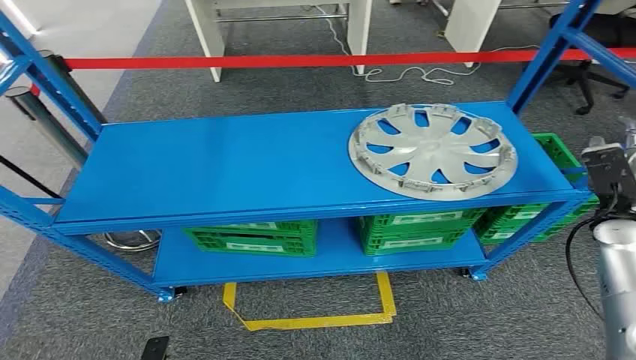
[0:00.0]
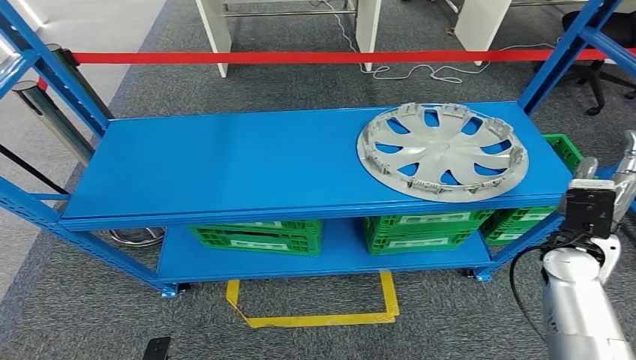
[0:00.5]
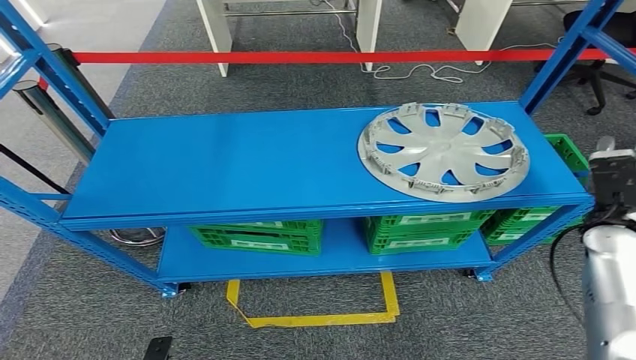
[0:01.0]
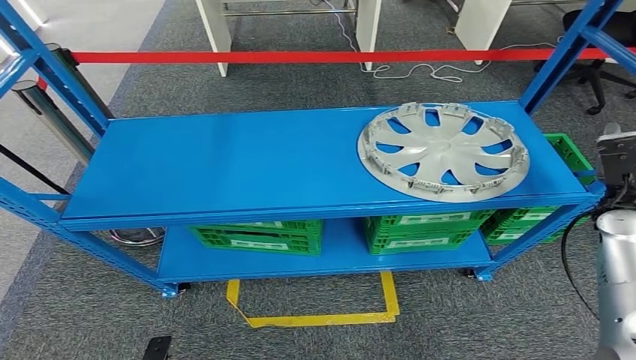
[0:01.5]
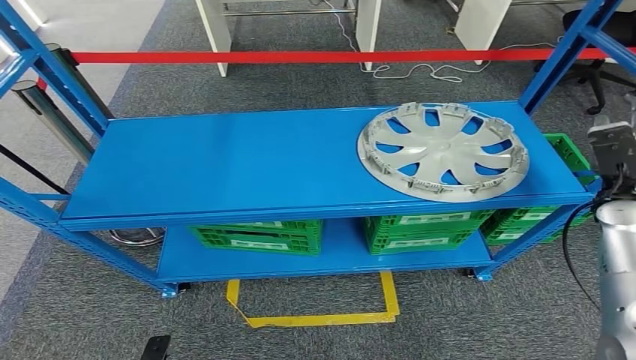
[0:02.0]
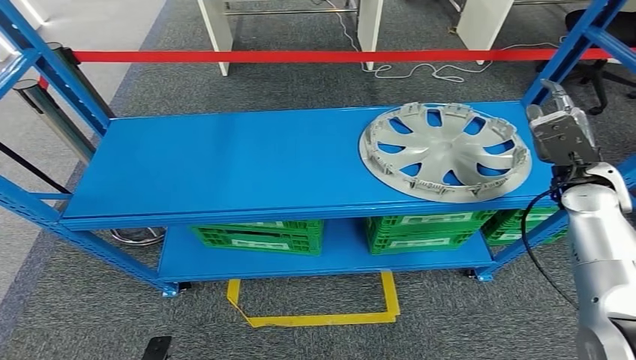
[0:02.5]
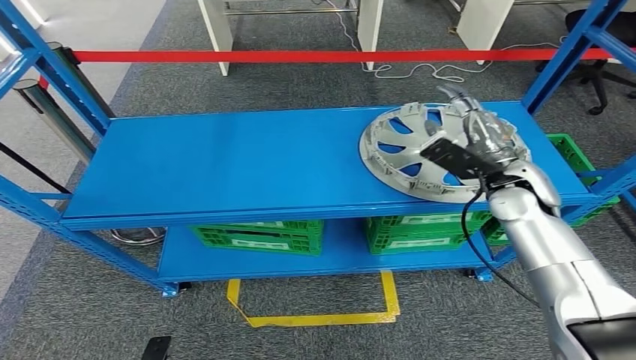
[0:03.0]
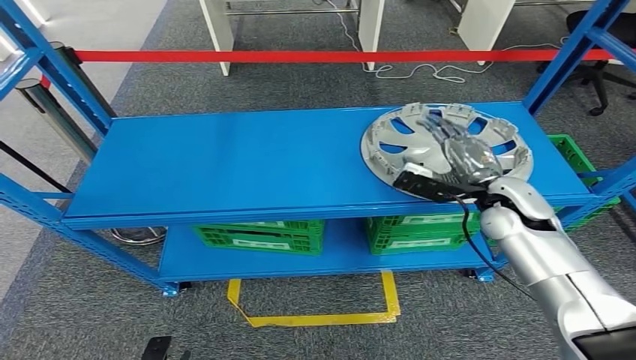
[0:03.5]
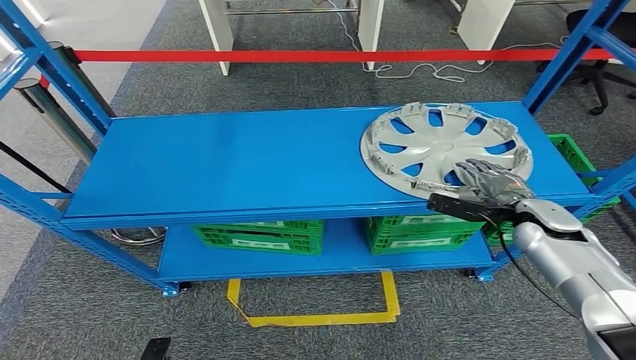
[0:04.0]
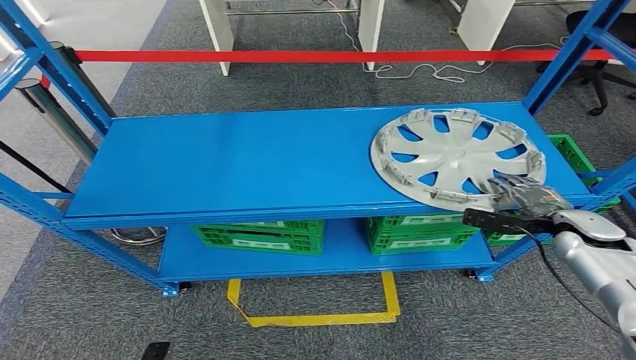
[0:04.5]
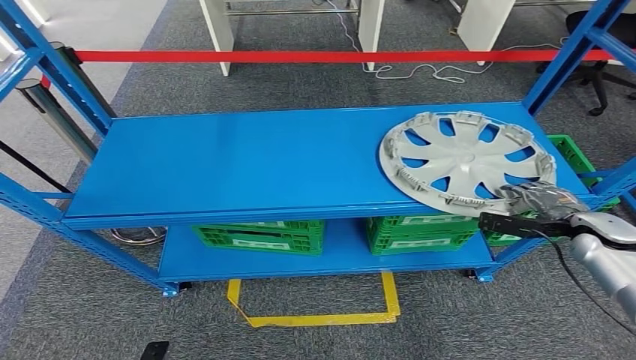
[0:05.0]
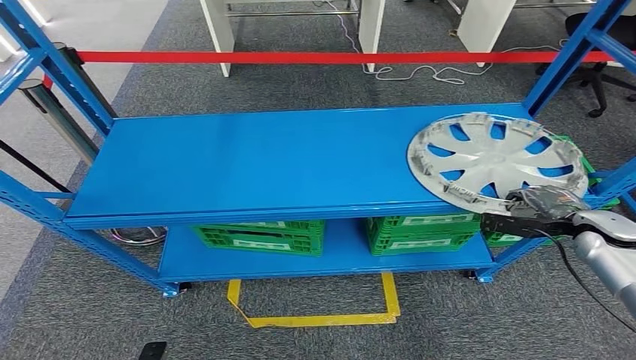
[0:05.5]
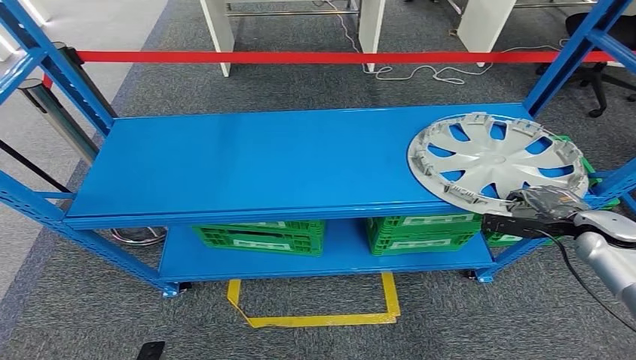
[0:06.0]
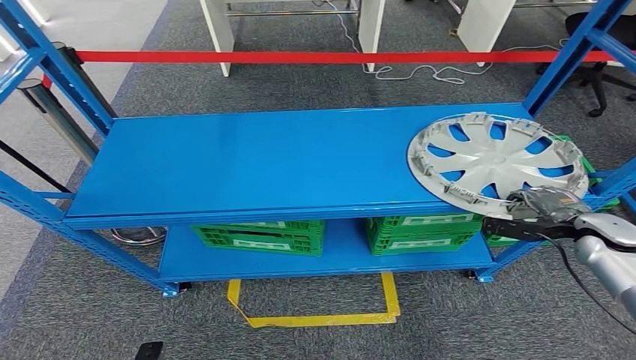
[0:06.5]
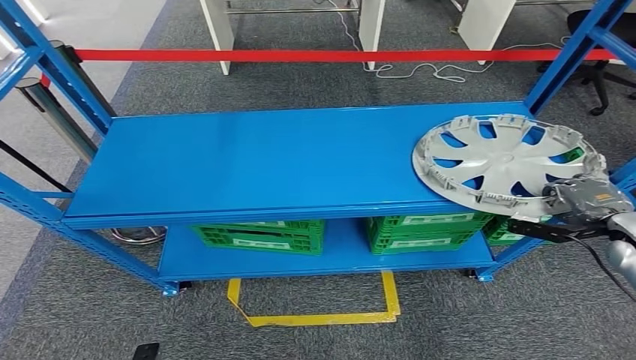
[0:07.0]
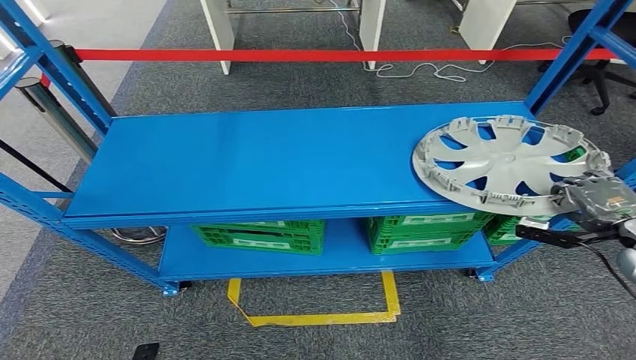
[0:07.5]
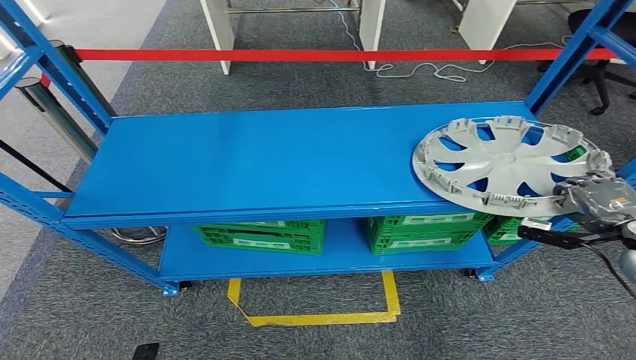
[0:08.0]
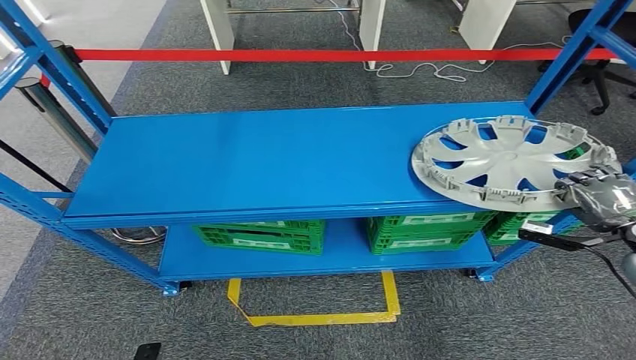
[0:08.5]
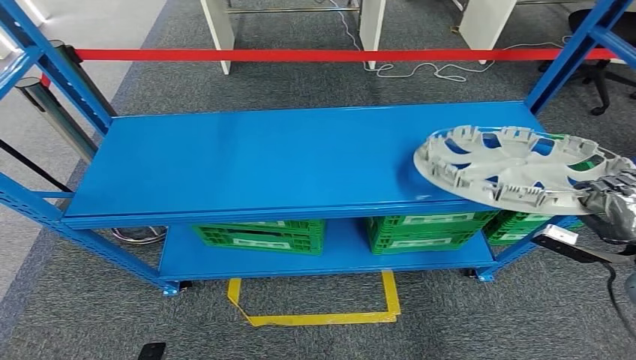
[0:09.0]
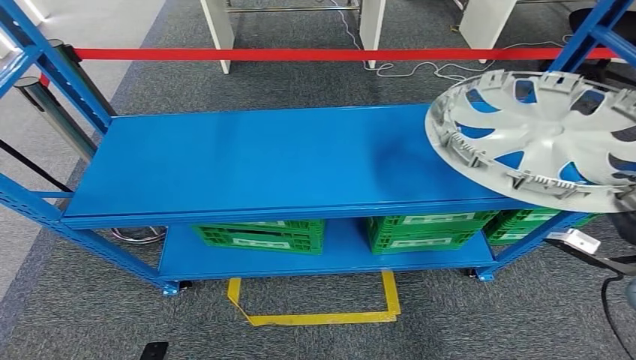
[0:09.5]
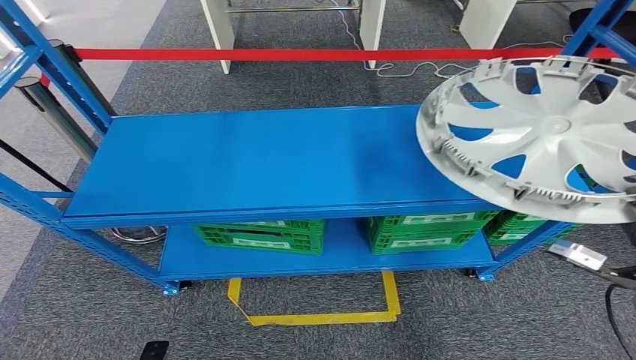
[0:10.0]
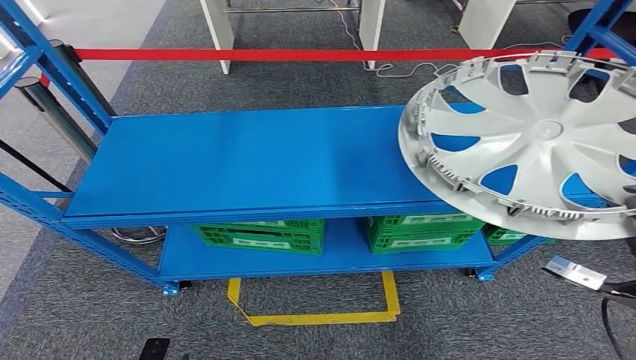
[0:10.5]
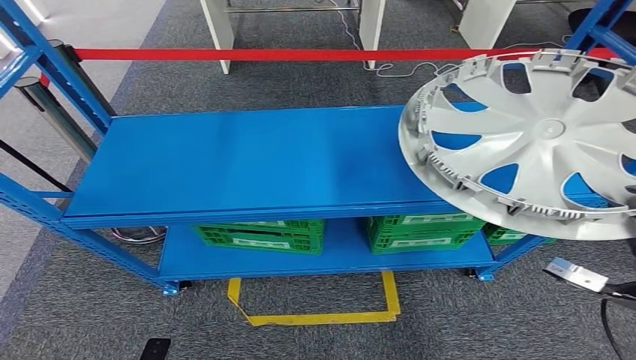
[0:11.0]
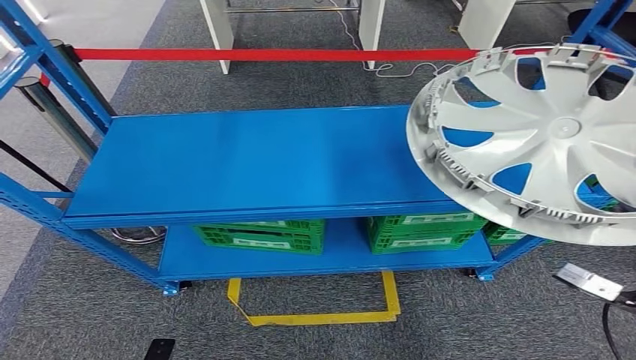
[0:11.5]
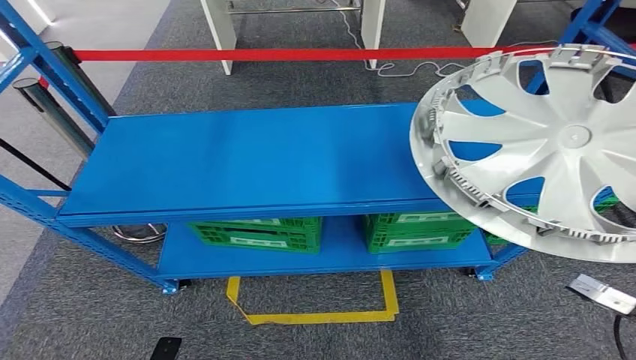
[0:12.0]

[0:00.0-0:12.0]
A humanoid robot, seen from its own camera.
0:02.0 to 0:04.0: The right hand travels downward and to the left by roughly 10 cm.
0:04.0 to 0:06.0: The right hand heads to the right, covering roughly 10 cm.
0:06.0 to 0:08.0: The right hand ends up roughly 5 cm from where it was.
0:08.0 to 0:10.0: The right hand shifts roughly 10 cm backward and to the left.
0:10.0 to 0:12.0: The hands stay close to where they were, moving slightly.

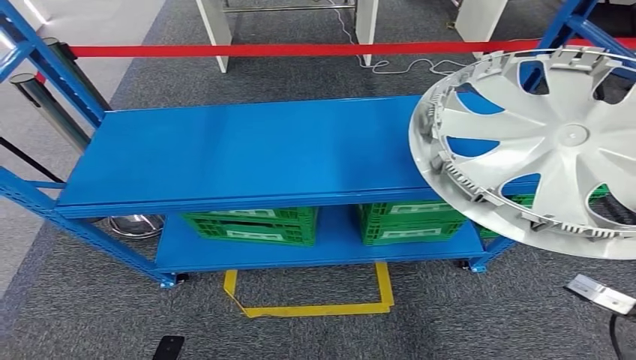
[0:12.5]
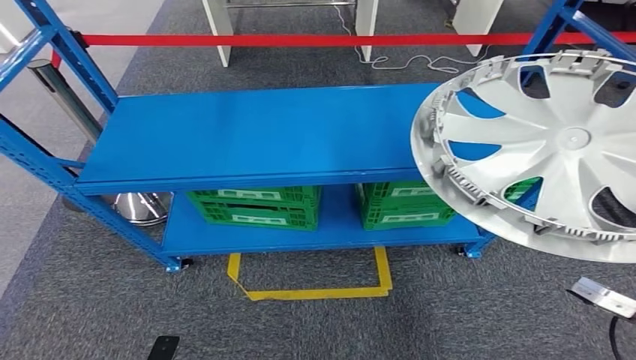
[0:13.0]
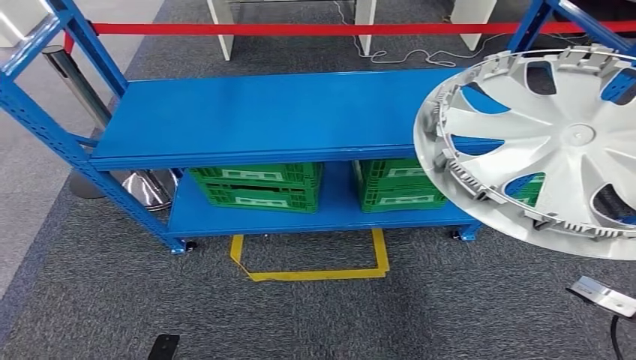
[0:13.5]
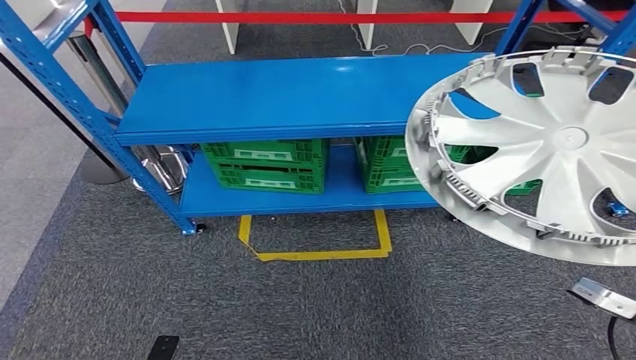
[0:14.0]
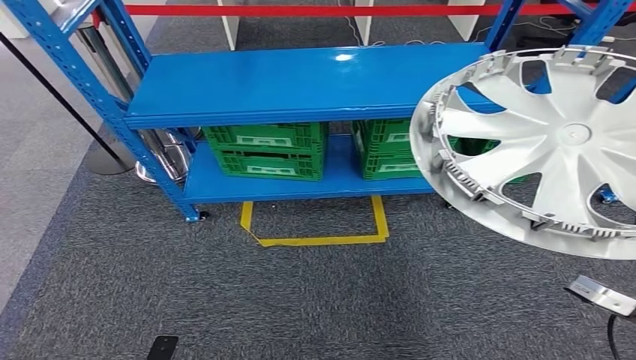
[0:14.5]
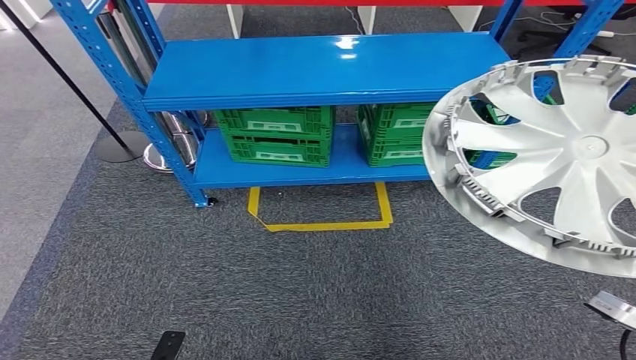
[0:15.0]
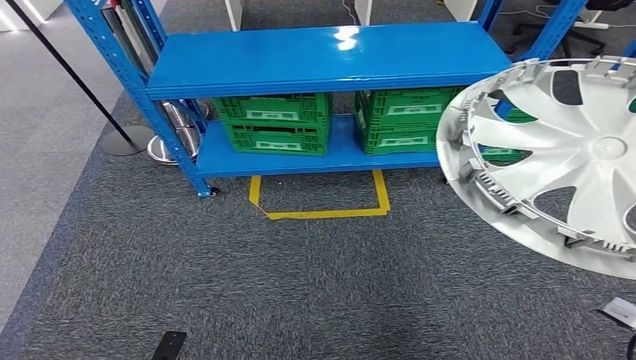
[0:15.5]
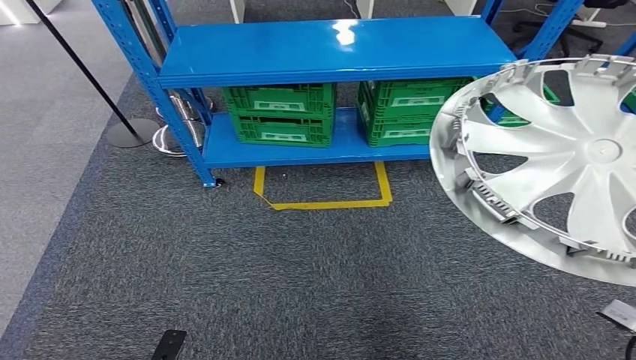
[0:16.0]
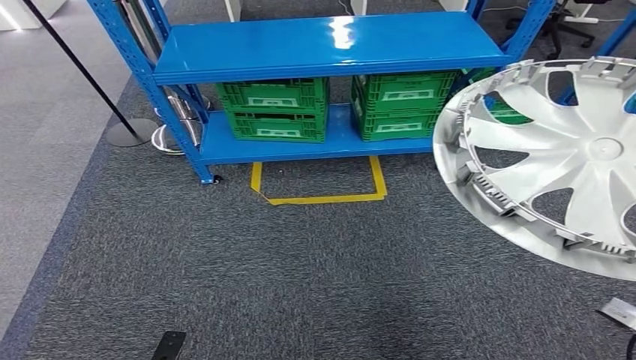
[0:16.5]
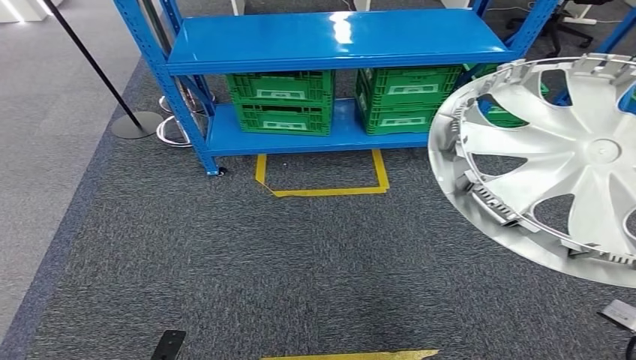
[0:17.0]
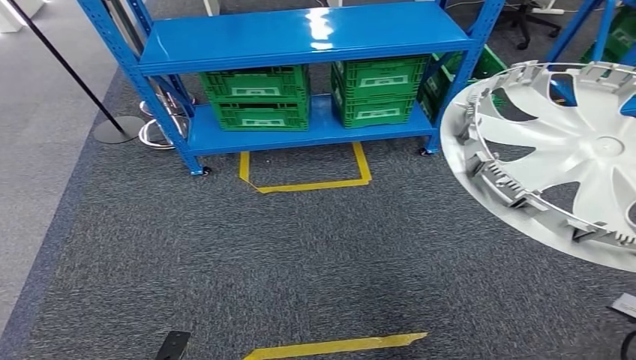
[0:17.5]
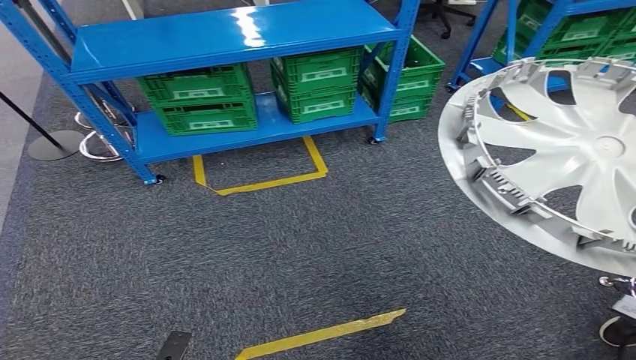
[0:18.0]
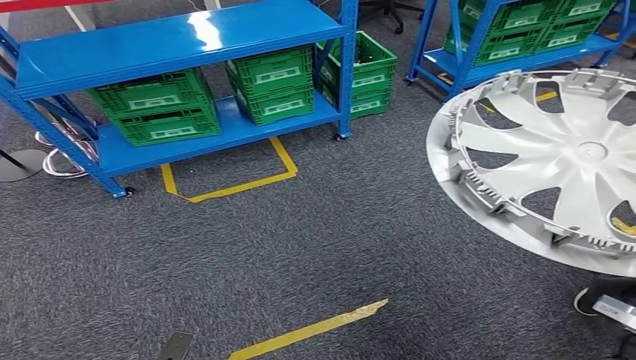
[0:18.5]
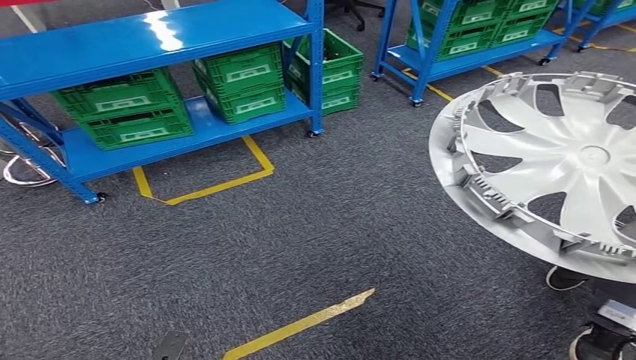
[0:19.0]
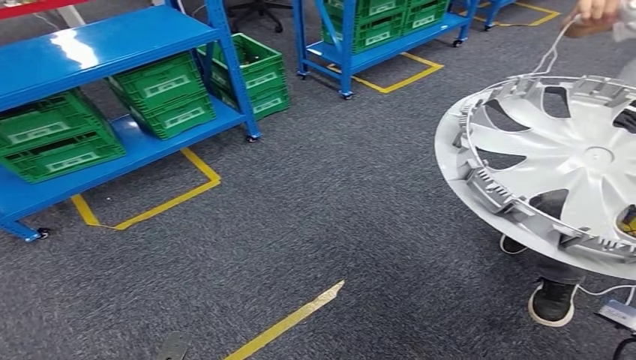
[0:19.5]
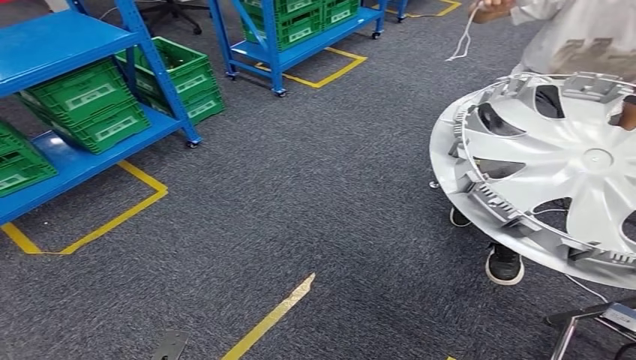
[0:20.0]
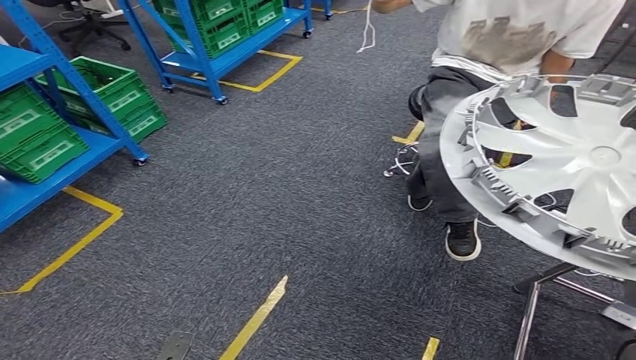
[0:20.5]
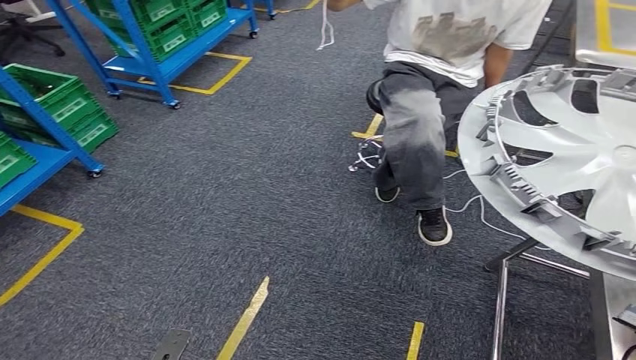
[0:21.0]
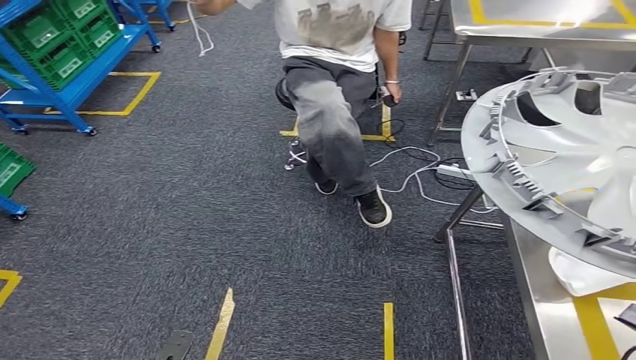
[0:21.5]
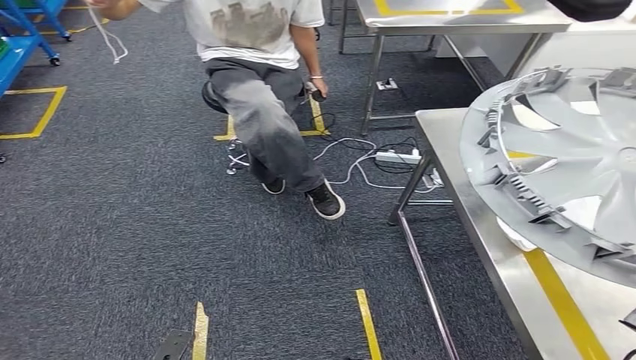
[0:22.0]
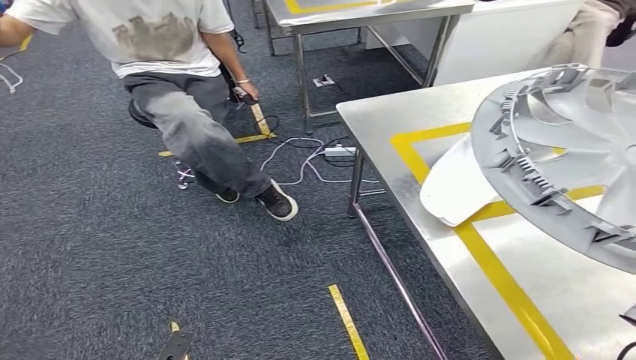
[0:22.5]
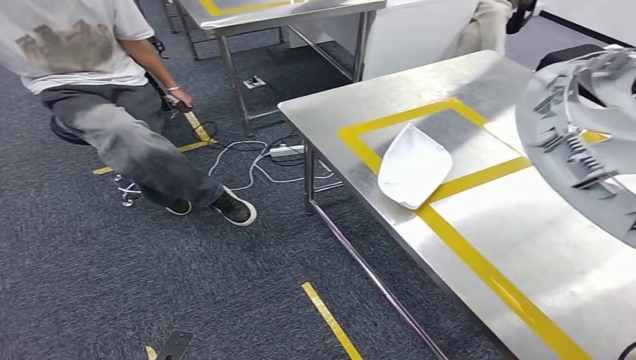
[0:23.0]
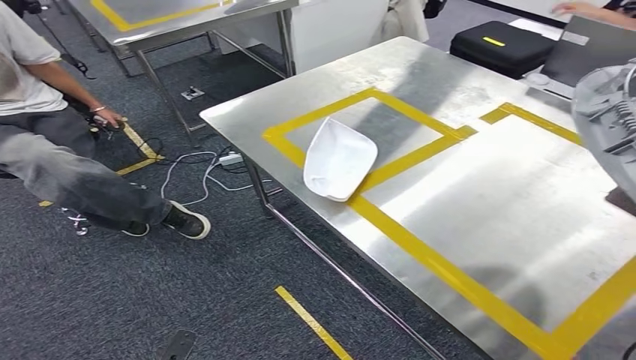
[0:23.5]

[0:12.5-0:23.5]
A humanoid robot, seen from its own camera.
Step, 0:13.5 to 0:22.0: Move the small parts to the workbench.
